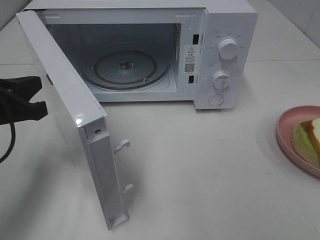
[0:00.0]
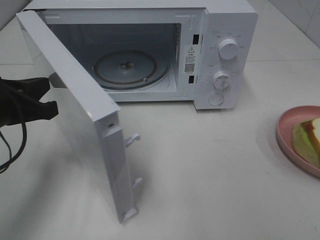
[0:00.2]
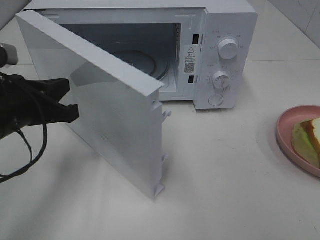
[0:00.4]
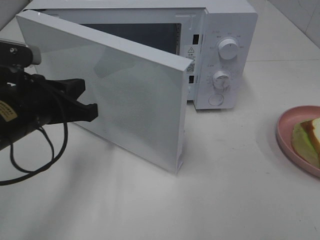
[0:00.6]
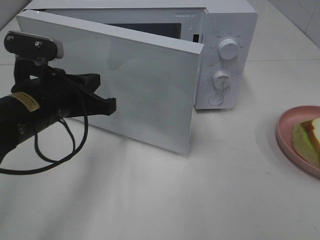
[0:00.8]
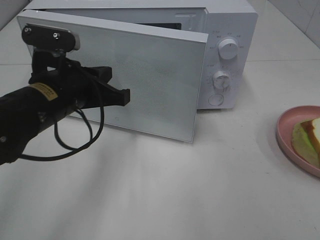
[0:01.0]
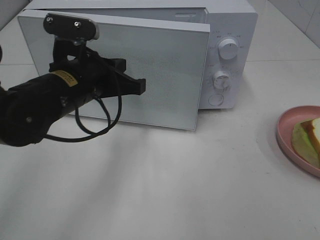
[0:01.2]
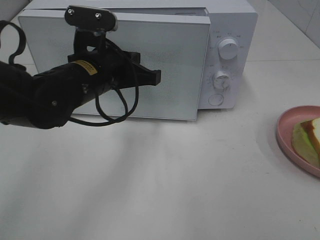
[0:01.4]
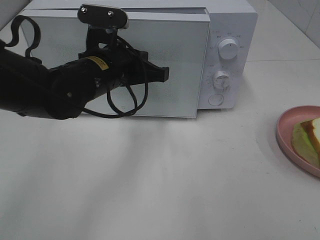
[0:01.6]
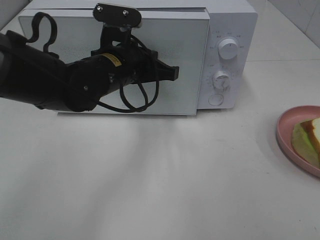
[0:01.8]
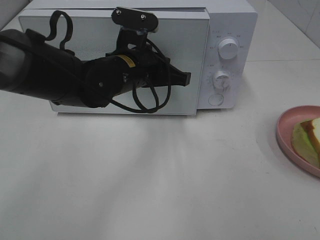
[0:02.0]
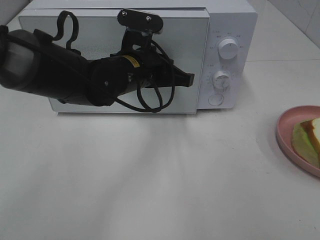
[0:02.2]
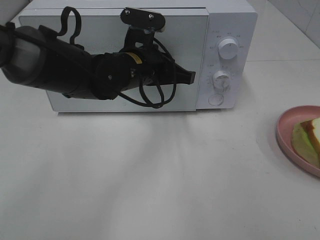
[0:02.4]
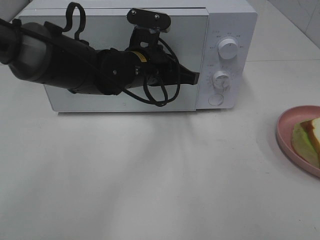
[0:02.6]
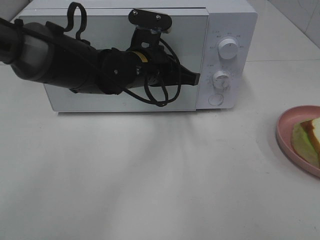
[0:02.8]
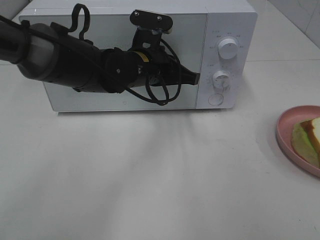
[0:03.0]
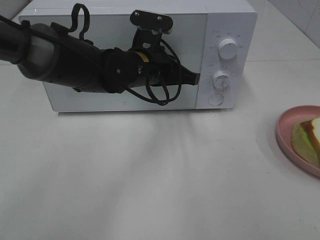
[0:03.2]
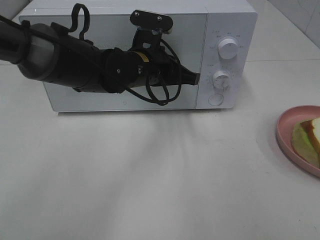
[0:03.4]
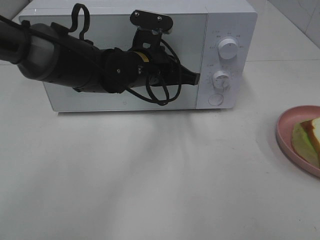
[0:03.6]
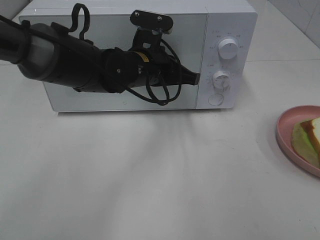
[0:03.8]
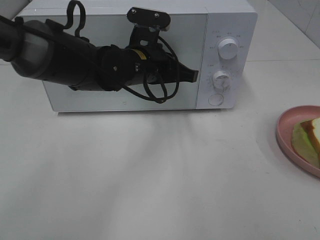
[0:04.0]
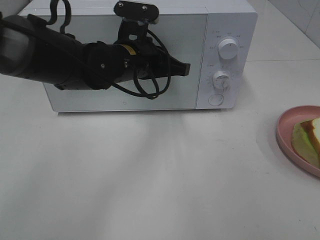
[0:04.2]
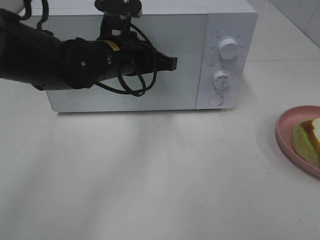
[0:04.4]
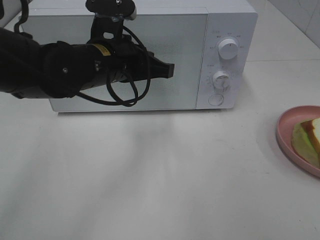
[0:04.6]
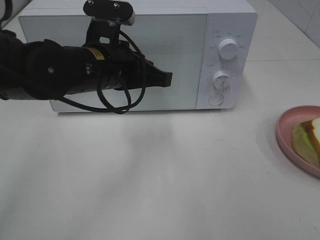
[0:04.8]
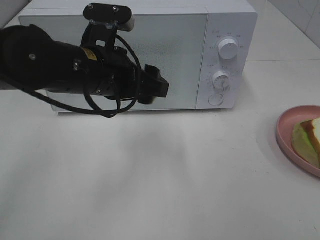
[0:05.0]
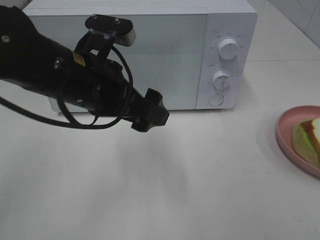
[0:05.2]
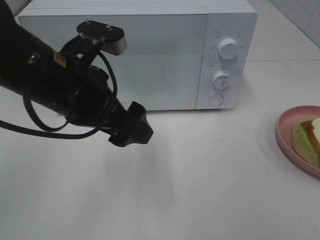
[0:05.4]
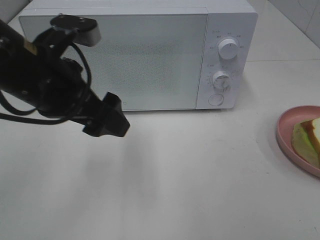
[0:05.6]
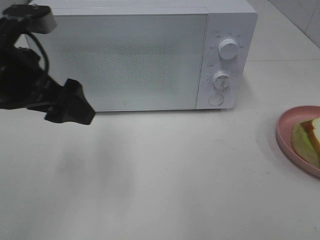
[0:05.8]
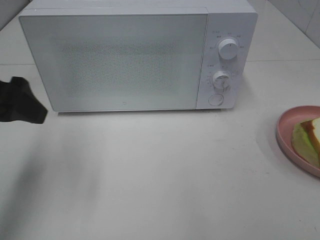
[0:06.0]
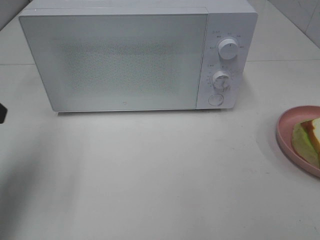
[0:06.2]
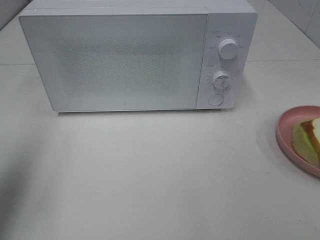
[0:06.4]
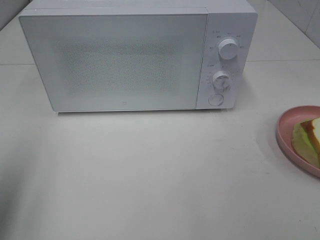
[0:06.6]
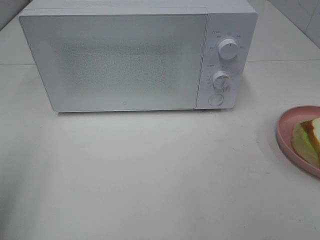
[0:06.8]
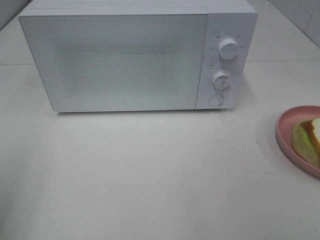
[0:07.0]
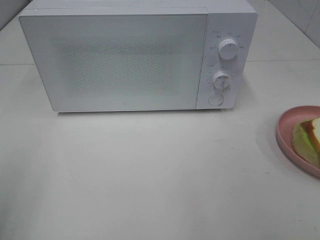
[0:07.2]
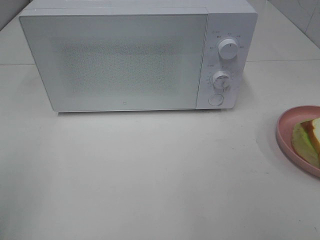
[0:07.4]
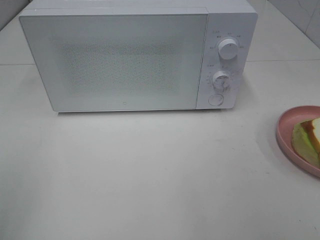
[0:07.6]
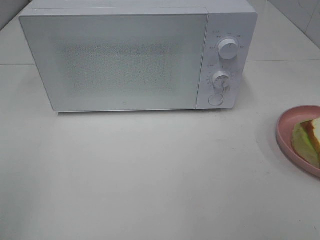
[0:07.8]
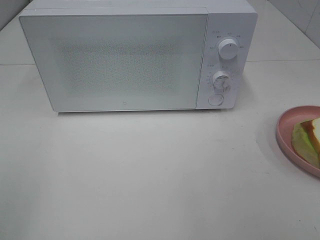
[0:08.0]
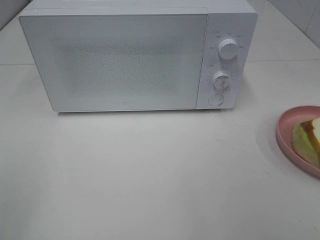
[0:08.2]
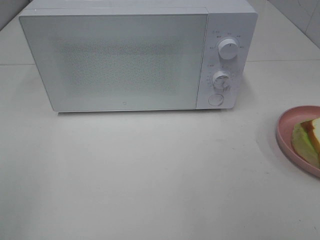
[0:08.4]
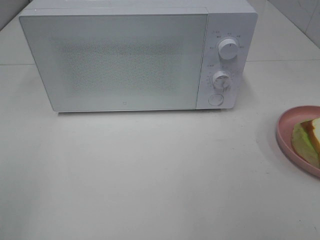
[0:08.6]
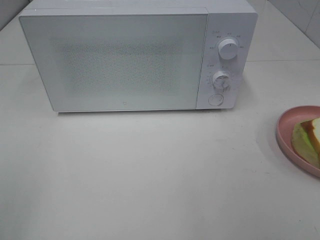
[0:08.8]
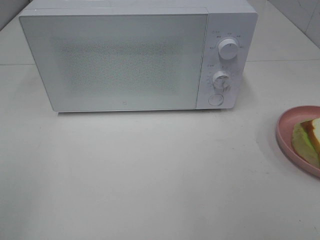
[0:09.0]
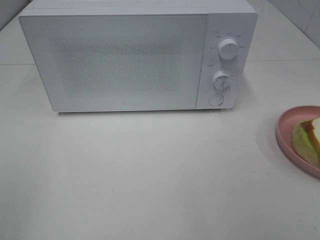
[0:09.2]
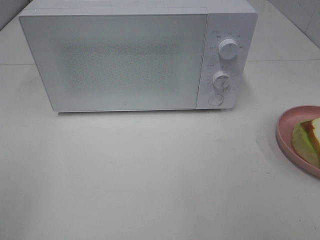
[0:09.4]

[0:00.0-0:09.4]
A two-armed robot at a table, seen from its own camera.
Task of the whole recording: Heat Sandwich.
Step, 0:00.0 to 0:04.6: Left hand: close the microwave door.
0:00.0 to 0:01.6: The left gripper heads to the right and forward, covering roughly 20 cm.
0:01.6 to 0:03.2: The left gripper ends up roughly 5 cm from where it was.
0:03.2 to 0:04.8: The left gripper moves backward and to the left, roughly 10 cm.
0:04.8 to 0:06.2: The left gripper is displaced to the left and backward by approximately 25 cm, and opens.
0:06.2 to 0:07.8: The left gripper shifts some 20 cm backward.
